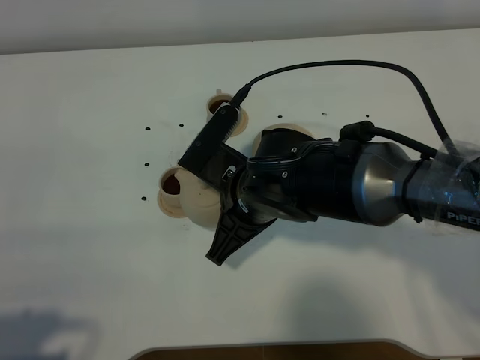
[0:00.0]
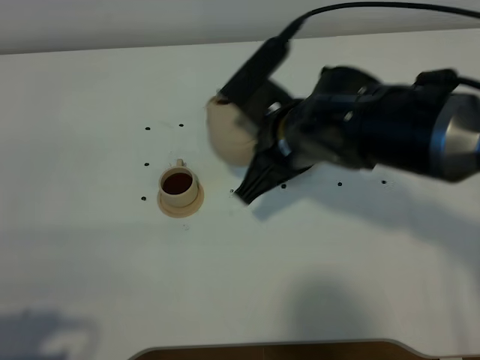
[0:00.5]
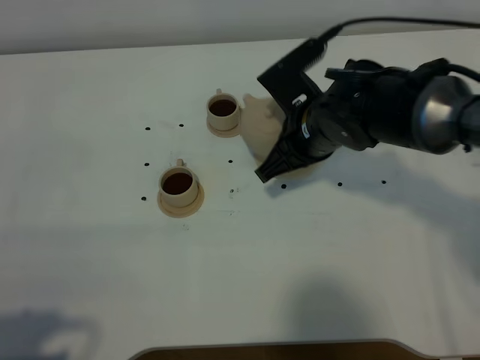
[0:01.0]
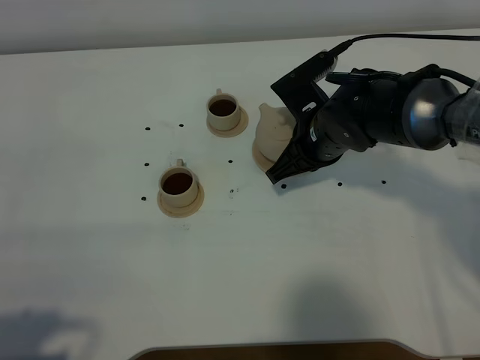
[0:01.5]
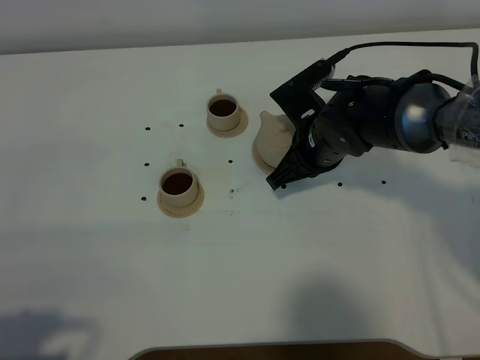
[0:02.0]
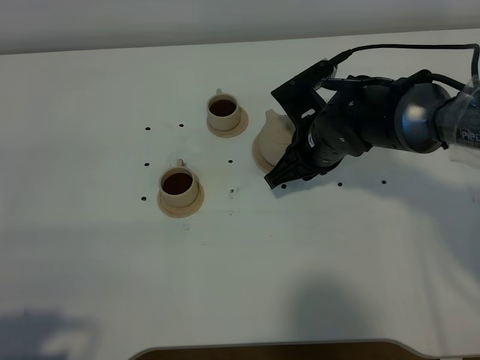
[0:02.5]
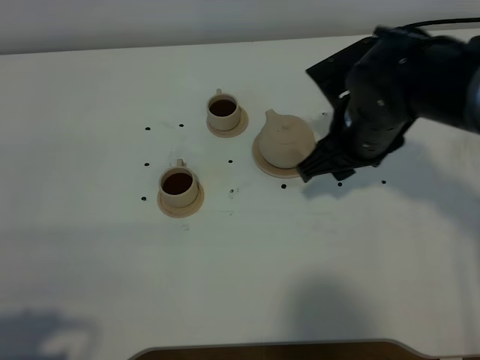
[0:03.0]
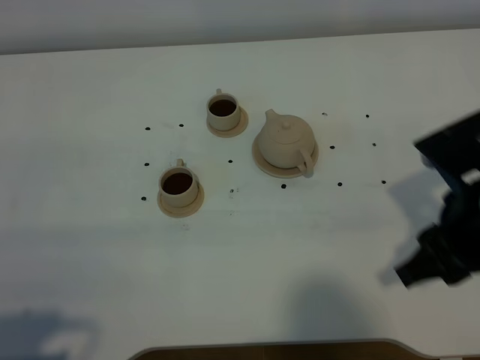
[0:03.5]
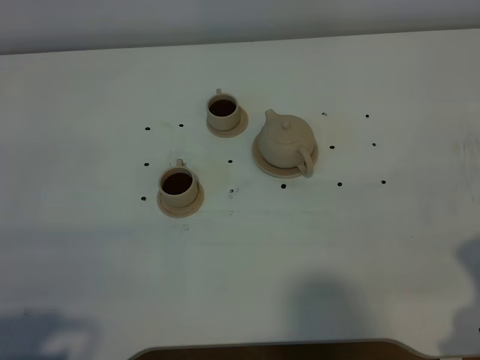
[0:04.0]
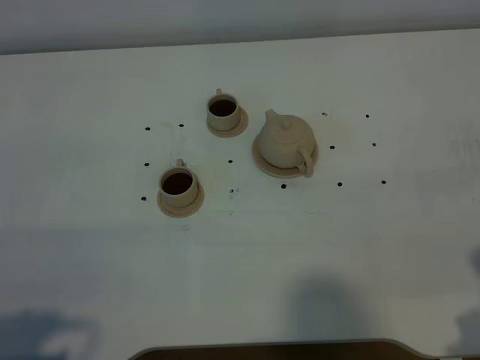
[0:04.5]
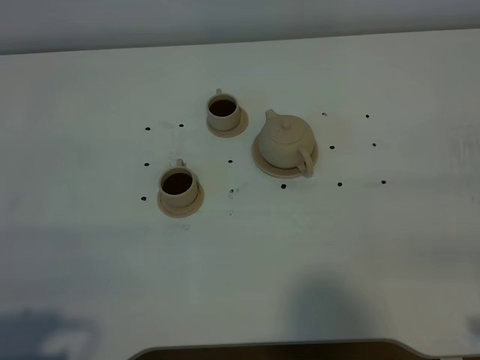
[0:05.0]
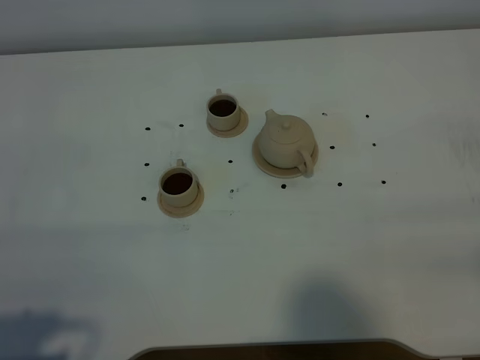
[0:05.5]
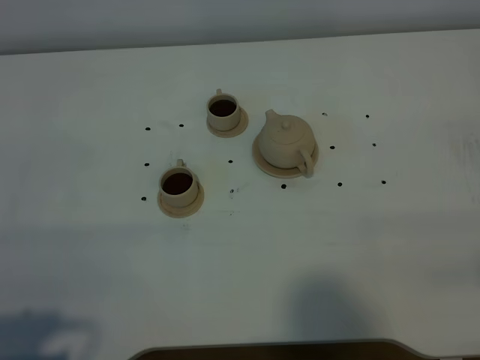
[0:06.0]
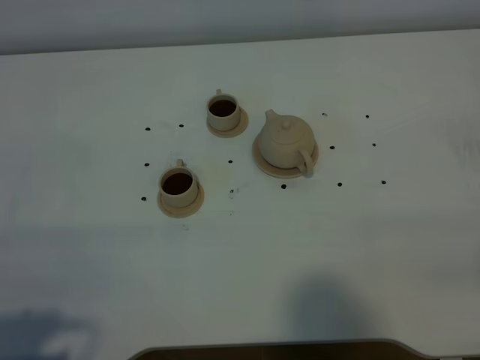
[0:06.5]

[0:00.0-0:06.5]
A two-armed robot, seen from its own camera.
Task of the whole recording: grasp the brown teapot and pour the tea into the two brown teacups one by one, put the brown teapot back in its original place.
0:00.0 to 0:02.0: The right gripper goes roughly 15 cm to the right and forward.
0:02.0 to 0:04.5: The right gripper travels backward and to the right by approximately 35 cm, and opens up.

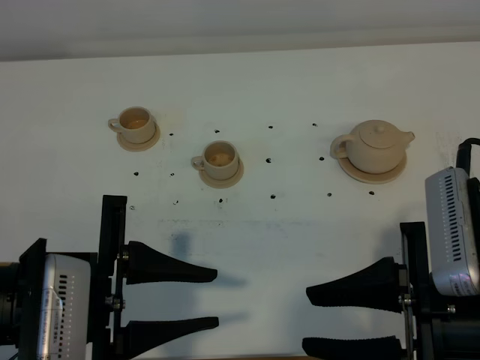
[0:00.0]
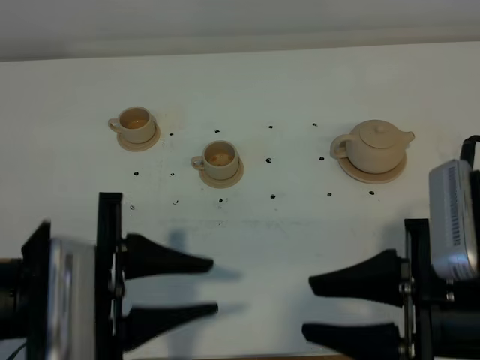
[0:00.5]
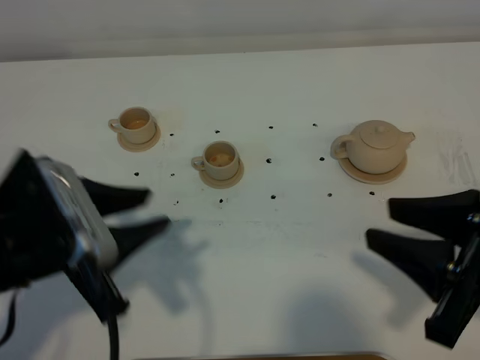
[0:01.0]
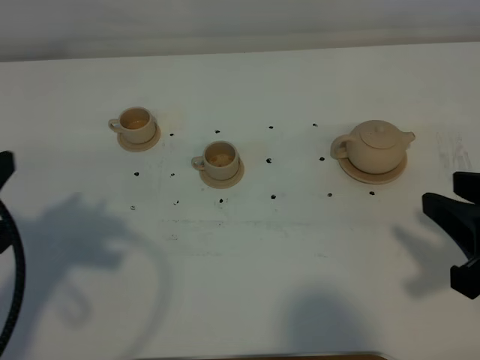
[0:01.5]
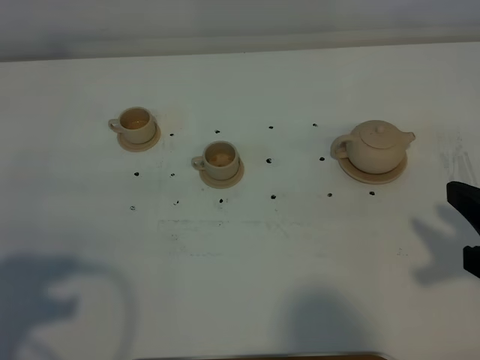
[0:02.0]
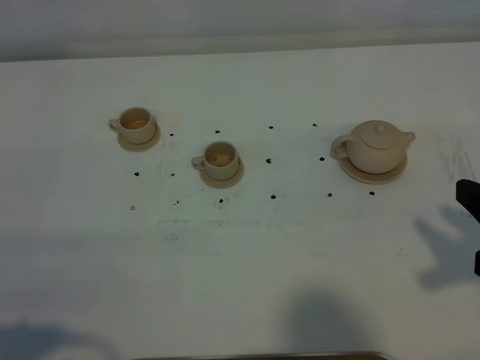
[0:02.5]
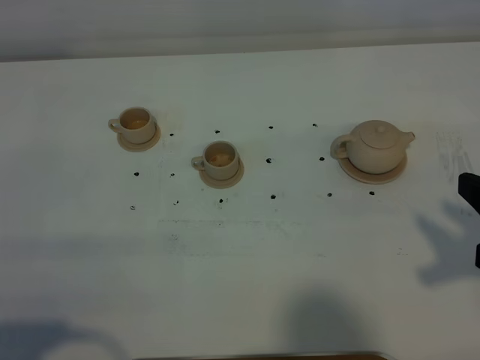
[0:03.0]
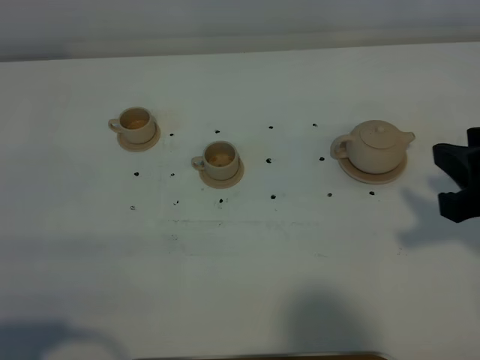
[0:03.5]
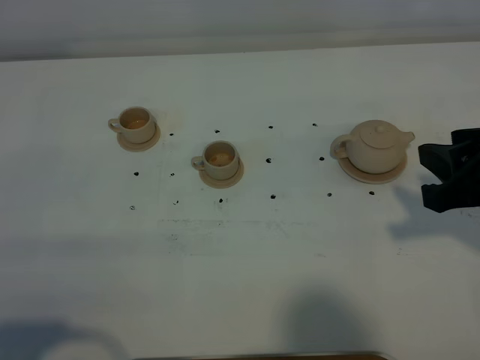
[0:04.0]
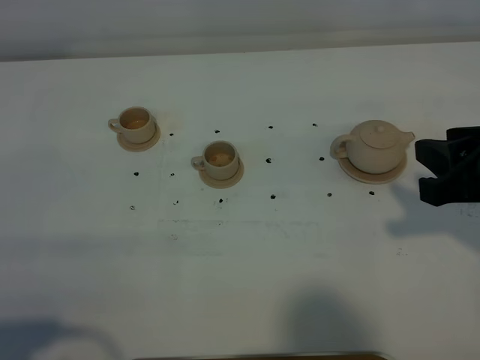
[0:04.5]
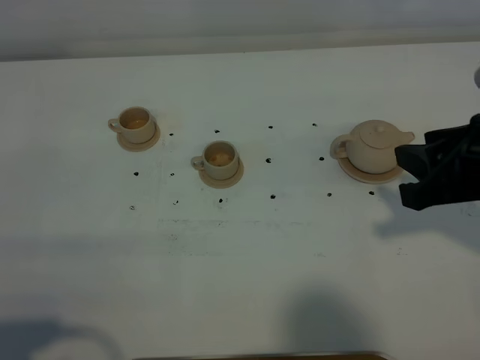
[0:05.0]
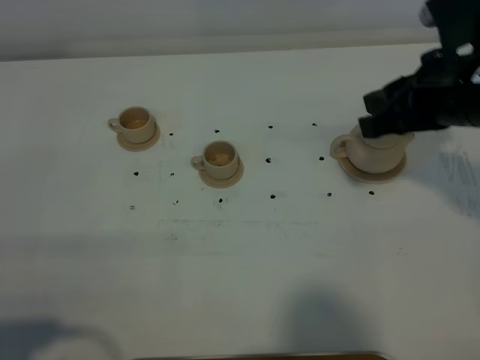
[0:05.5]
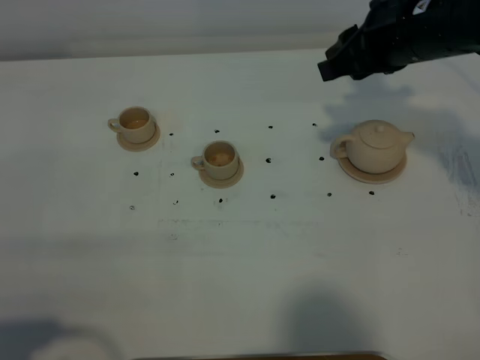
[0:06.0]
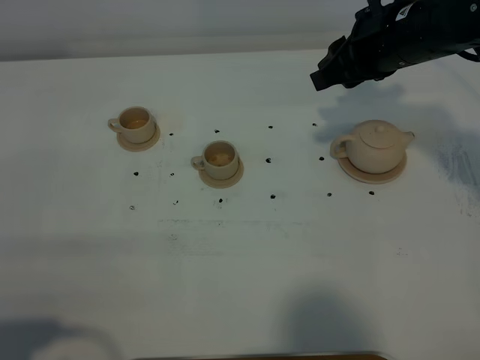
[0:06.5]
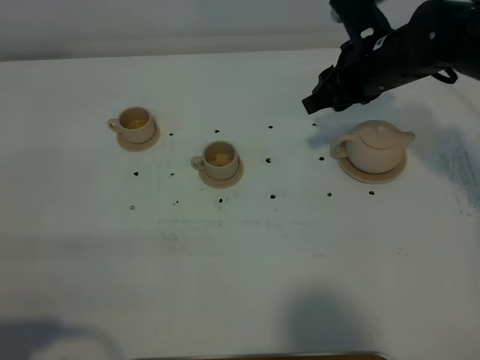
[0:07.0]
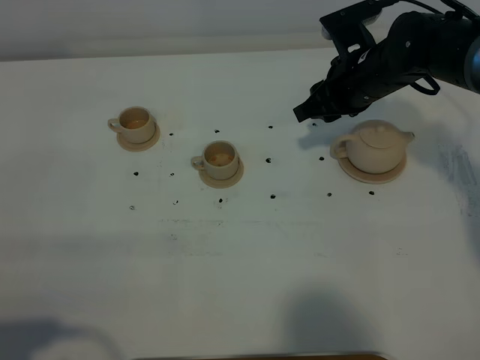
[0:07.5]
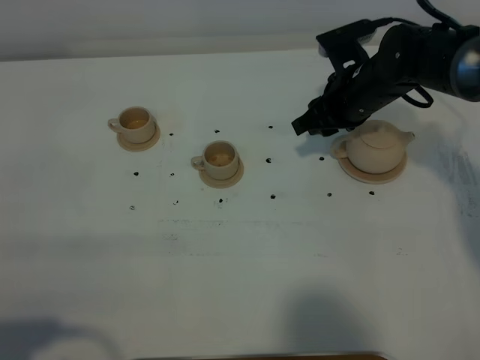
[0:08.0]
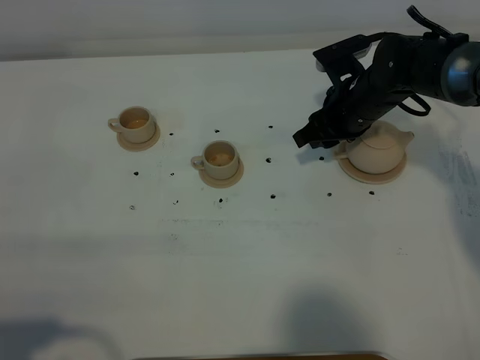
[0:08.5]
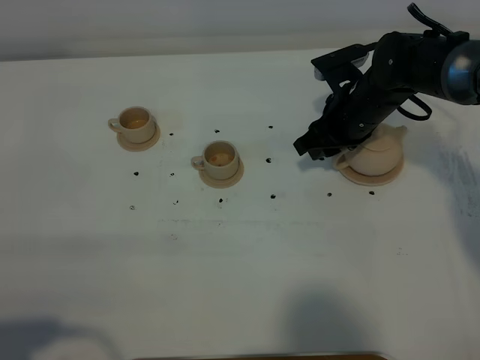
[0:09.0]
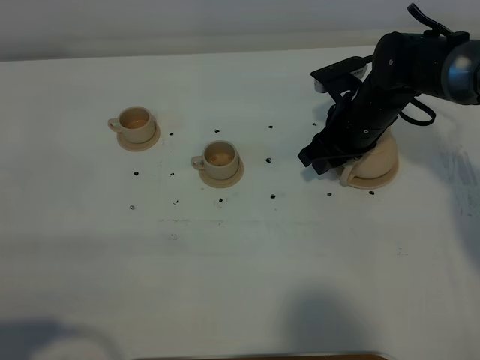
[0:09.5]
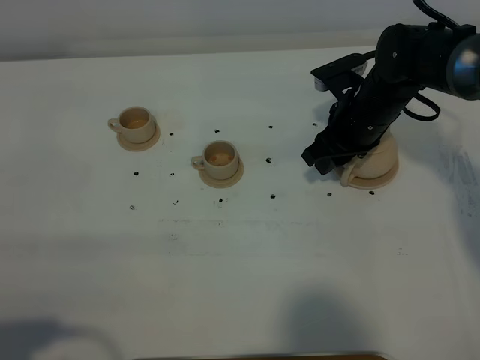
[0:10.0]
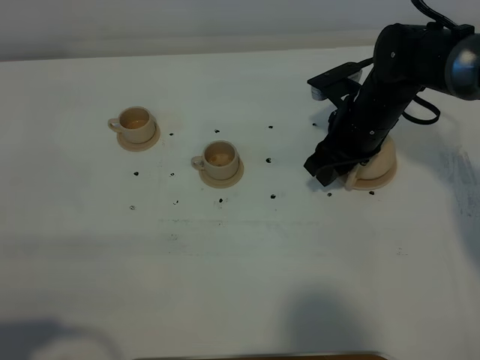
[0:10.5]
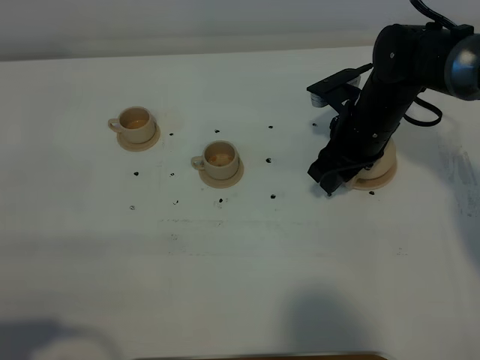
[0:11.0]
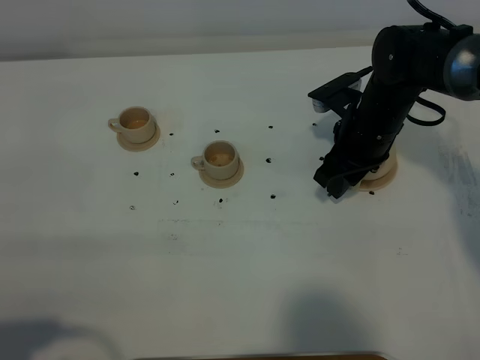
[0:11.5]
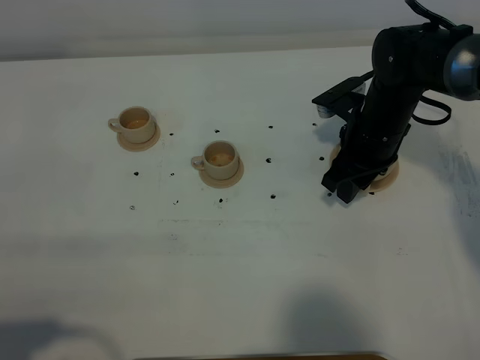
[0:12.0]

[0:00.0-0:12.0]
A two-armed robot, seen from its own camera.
Task of the whole recording: grasp the brown teapot and pour the tea into the two brown teacups one by one, put the brown teapot back in its original place.
0:00.0 to 0:02.0: The left gripper shifts approximately 15 cm to the left and backward, while the right gripper heads to the right, covering some 10 cm.
0:02.0 to 0:04.0: The right gripper moves forward, some 5 cm, while the left gripper heads backward, covering about 5 cm.
0:04.0 to 0:06.0: The right gripper goes some 20 cm forward.
0:06.0 to 0:08.0: The right gripper travels downward and forward by about 15 cm.
0:08.0 to 0:10.0: The grippers make only small movements.
0:10.0 to 0:12.0: The grippers stay close to where they were, moving slightly.

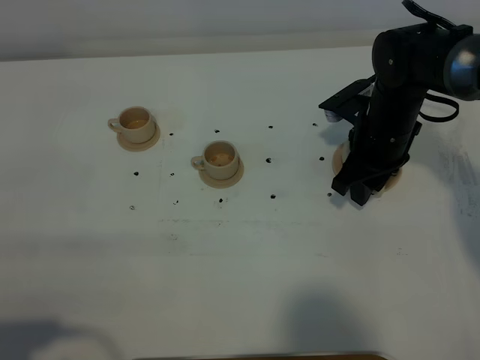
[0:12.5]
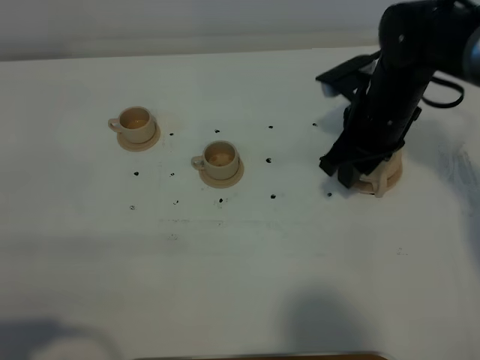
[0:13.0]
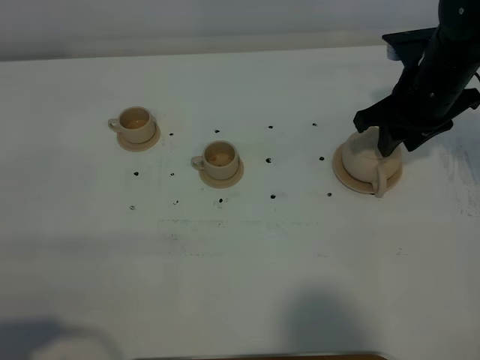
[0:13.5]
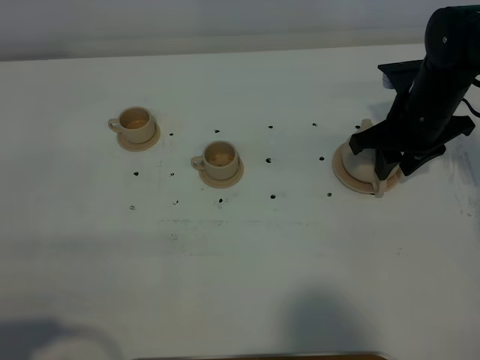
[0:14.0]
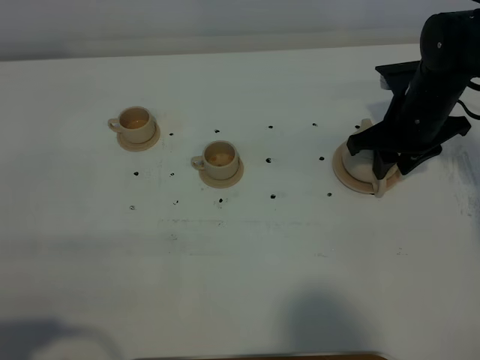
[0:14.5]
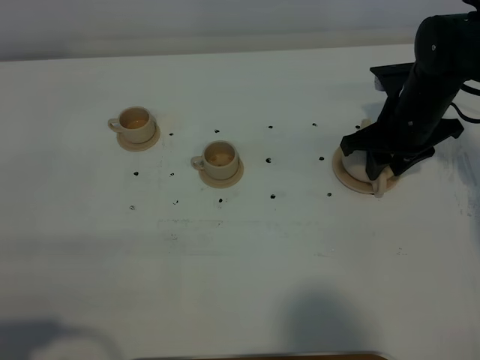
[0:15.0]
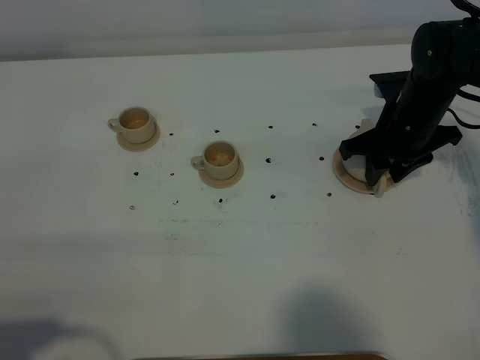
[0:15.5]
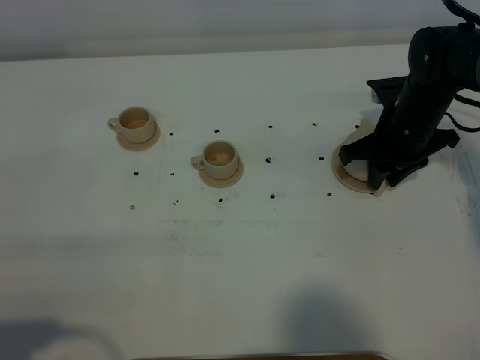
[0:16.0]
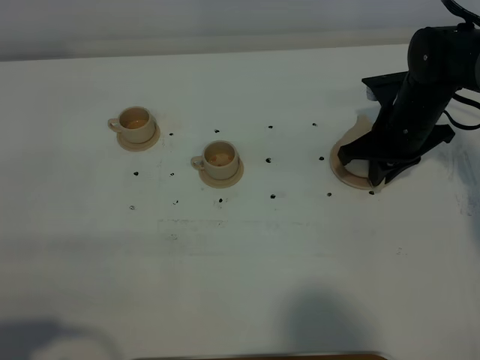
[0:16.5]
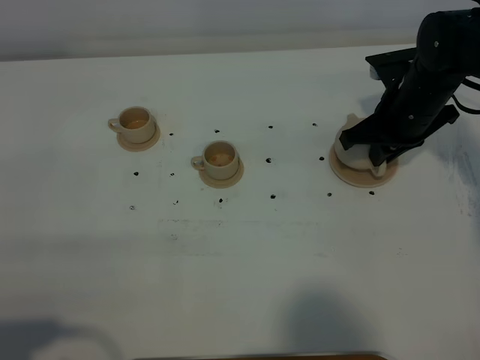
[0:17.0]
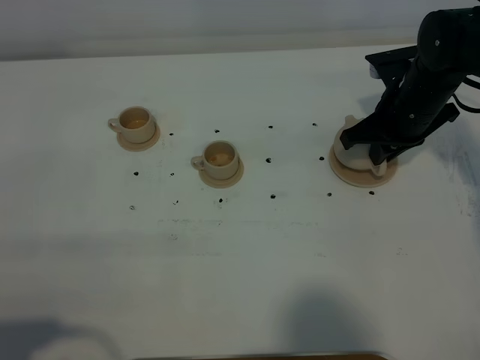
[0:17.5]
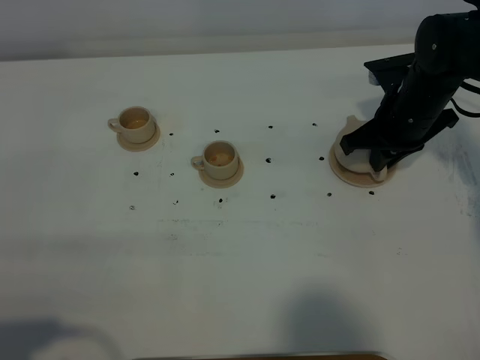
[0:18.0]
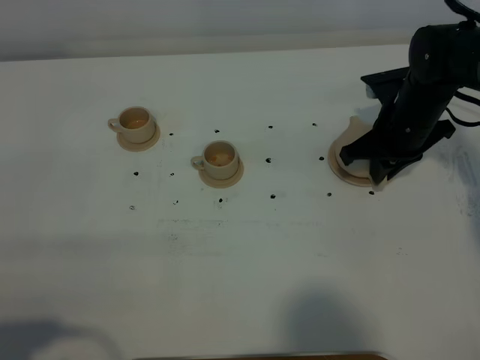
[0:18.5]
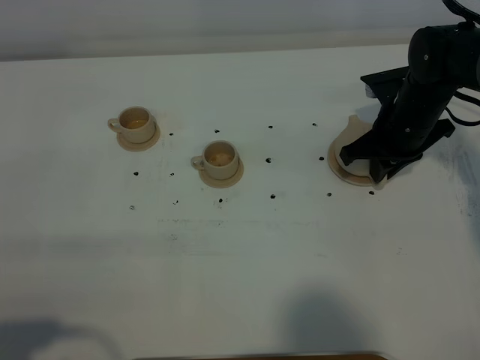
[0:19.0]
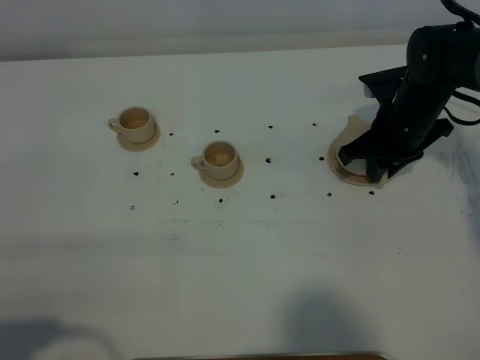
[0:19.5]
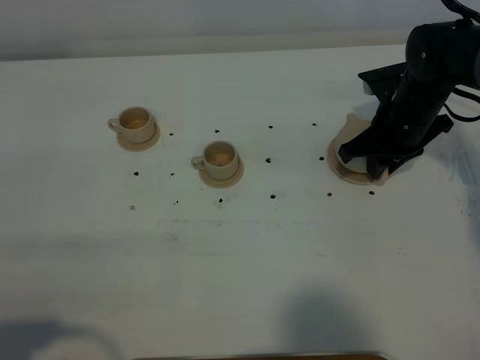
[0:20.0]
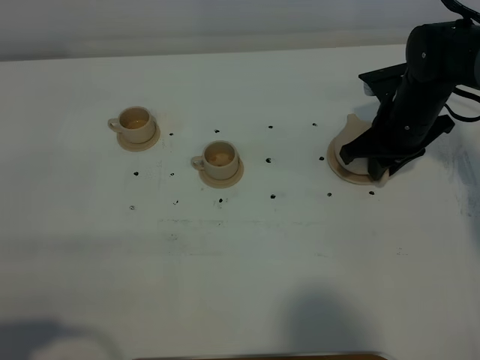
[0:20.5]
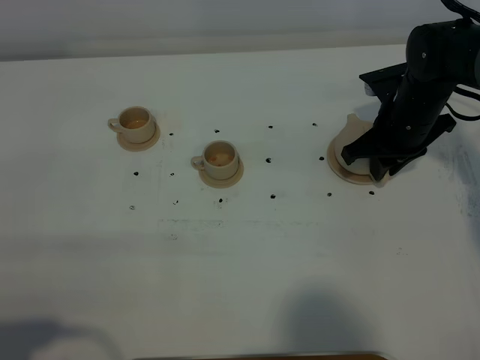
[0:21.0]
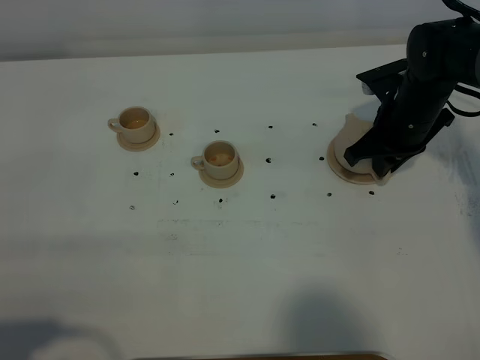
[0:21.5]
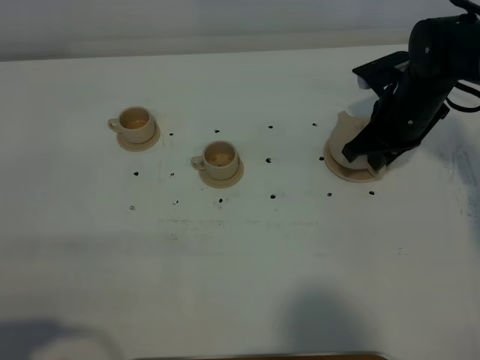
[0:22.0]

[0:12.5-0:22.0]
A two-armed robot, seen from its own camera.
Task of the whole recording: grasp the brown teapot and pour the tea into the two brown teacups one by one, put the brown teapot back in its original place.
0:14.5 to 0:16.5: The right gripper closes.
0:16.5 to 0:22.0: The grippers stay close to where they were, moving slightly.
